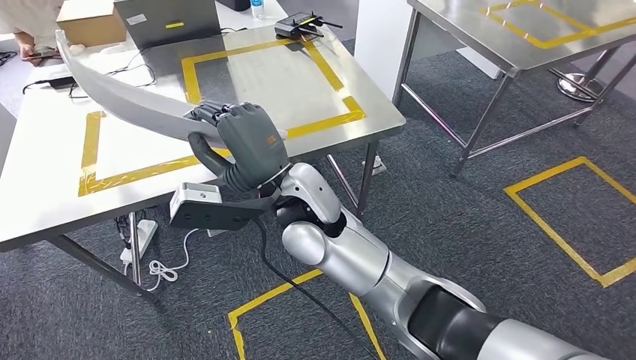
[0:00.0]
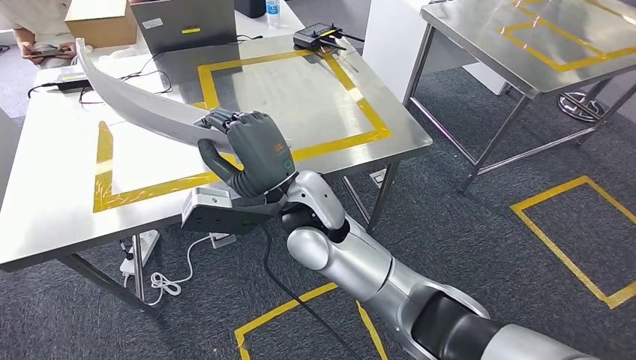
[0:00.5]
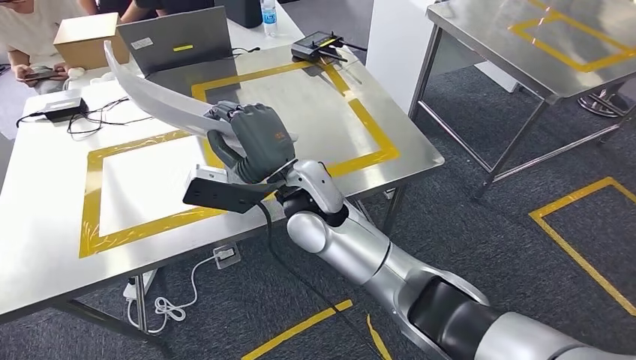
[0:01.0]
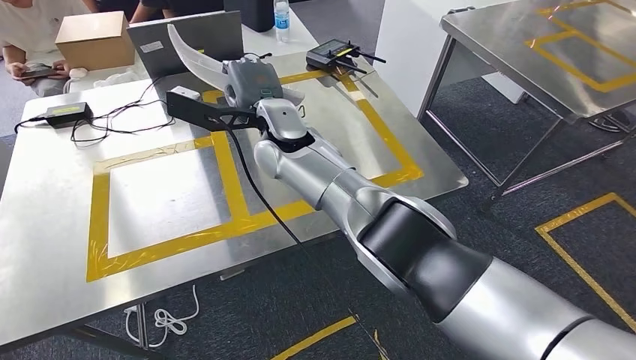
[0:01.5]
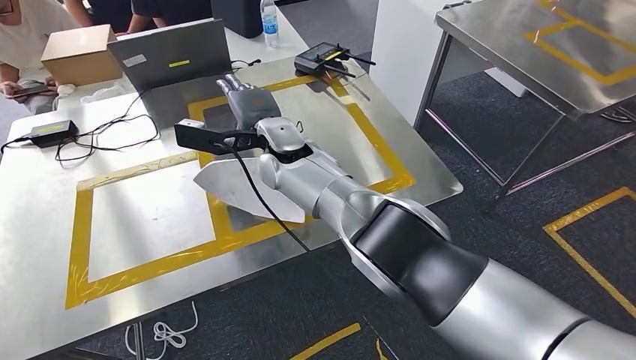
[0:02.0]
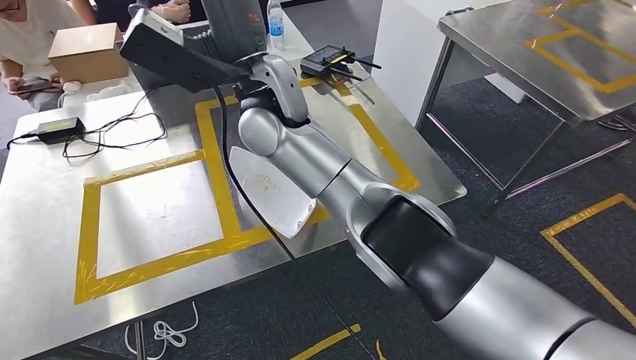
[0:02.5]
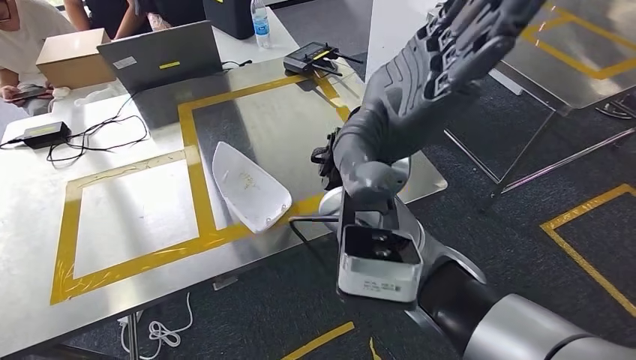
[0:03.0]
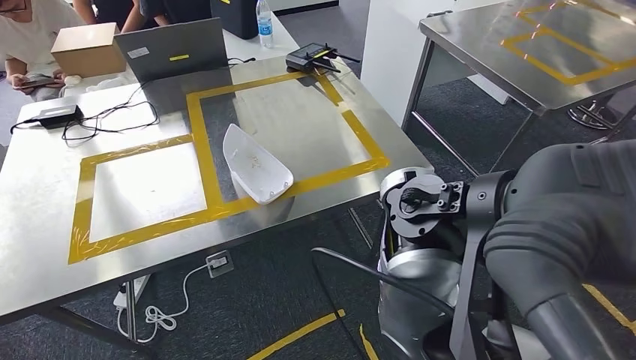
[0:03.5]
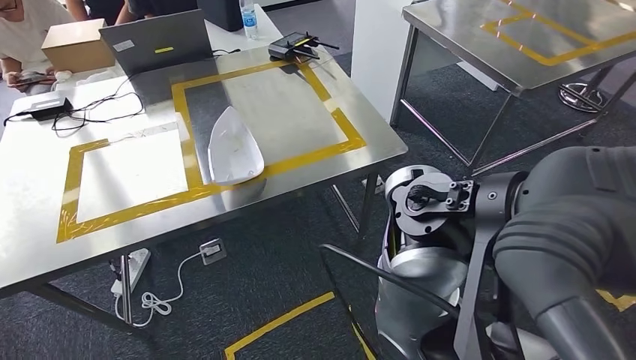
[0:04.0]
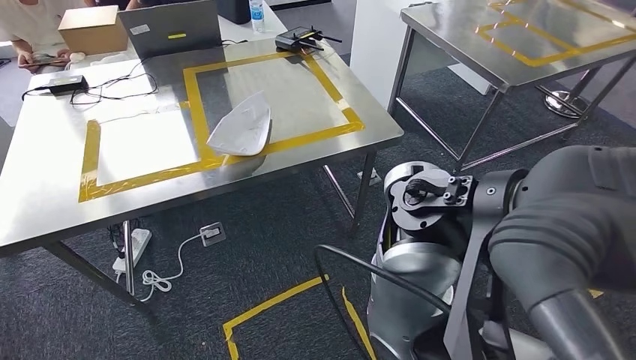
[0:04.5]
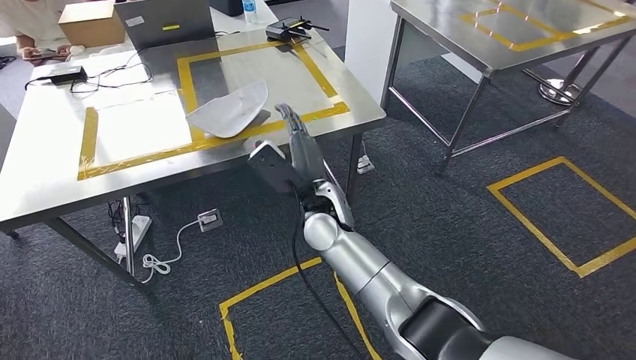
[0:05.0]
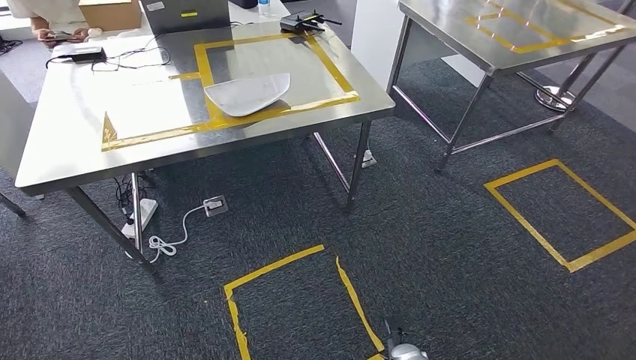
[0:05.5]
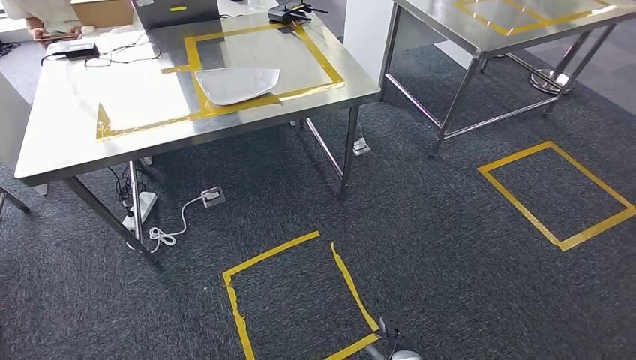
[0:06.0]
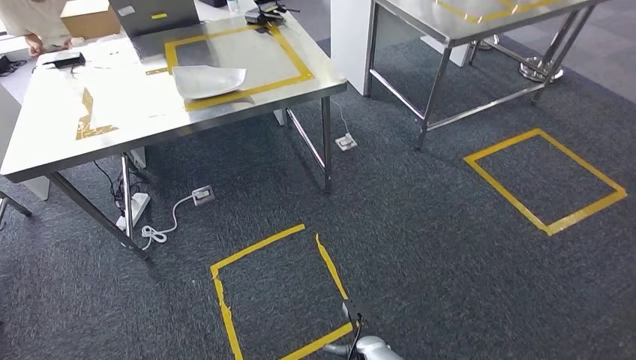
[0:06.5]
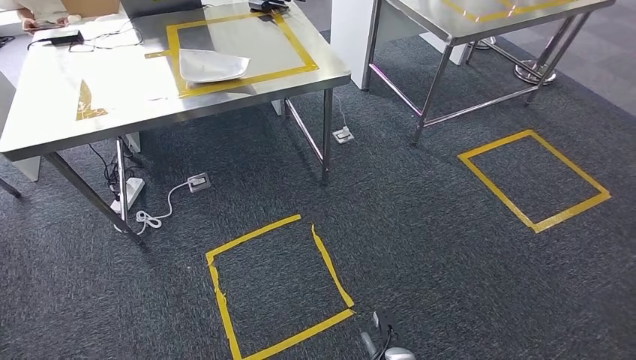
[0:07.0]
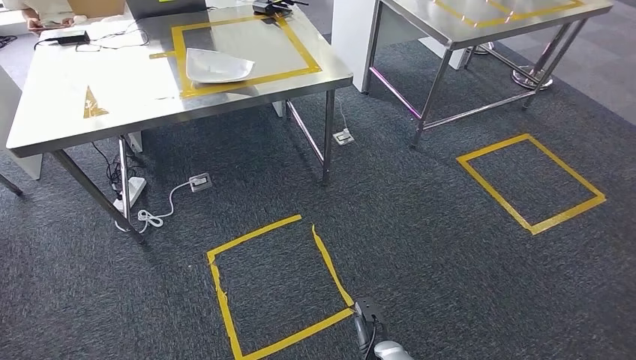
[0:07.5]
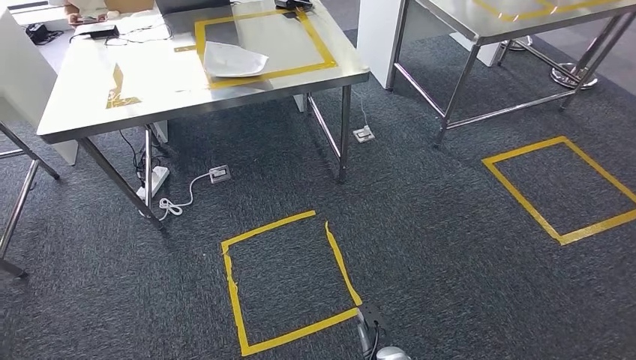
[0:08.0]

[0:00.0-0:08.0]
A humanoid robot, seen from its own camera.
Step, 0:00.0 to 0:03.5: Insert the small parts into the corresponding holes on the workbench.
Step, 0:04.5 to 0:07.5: Move to the initial position at the workbench.
